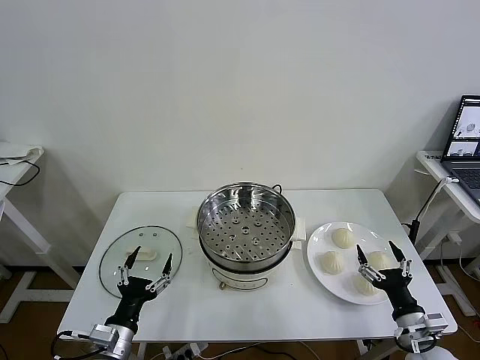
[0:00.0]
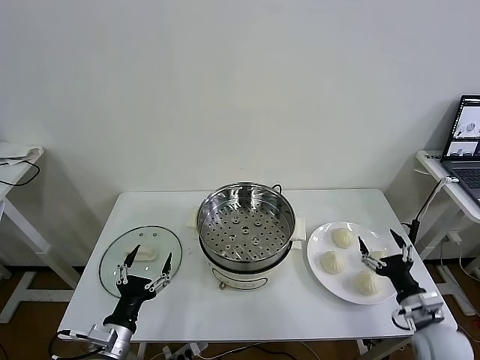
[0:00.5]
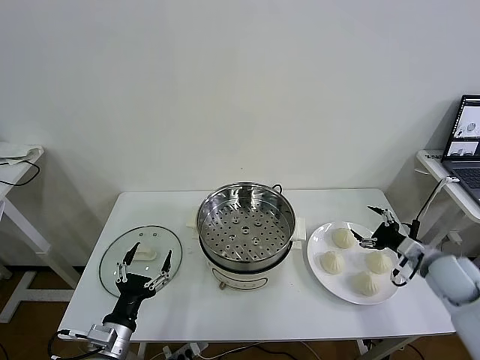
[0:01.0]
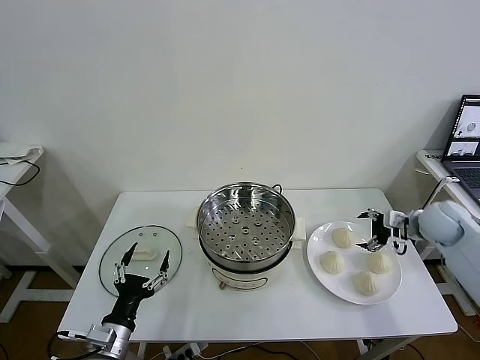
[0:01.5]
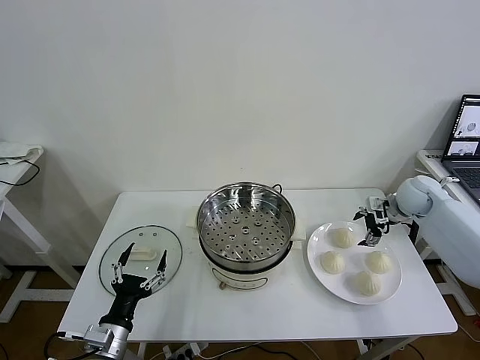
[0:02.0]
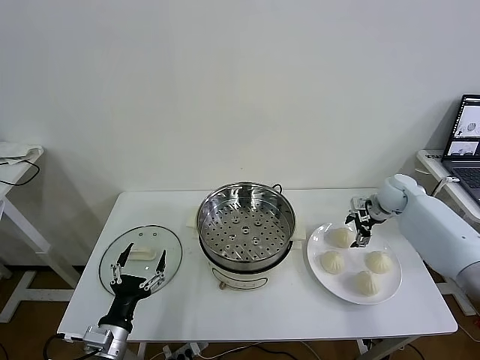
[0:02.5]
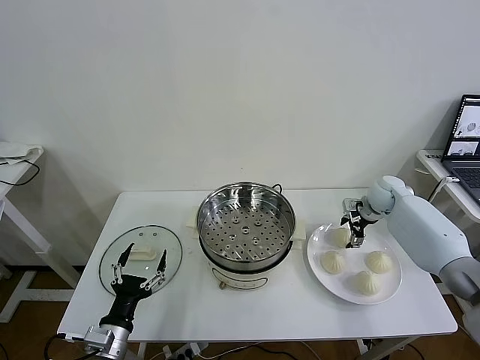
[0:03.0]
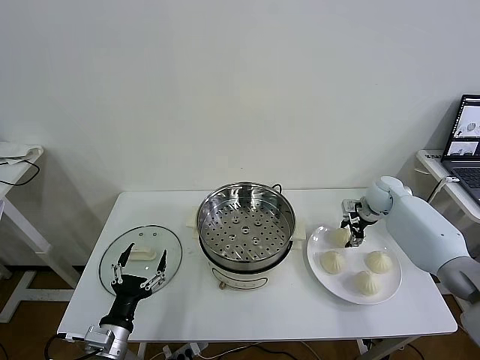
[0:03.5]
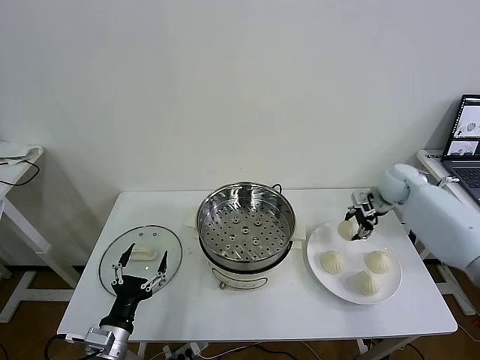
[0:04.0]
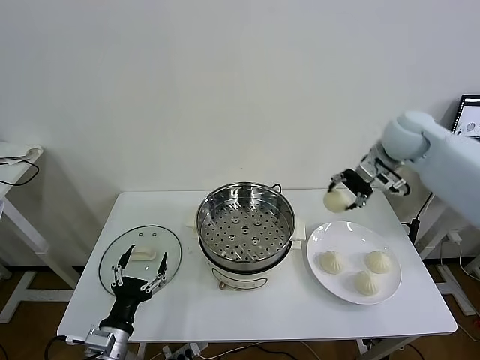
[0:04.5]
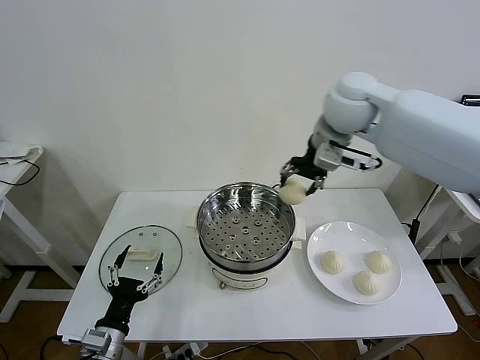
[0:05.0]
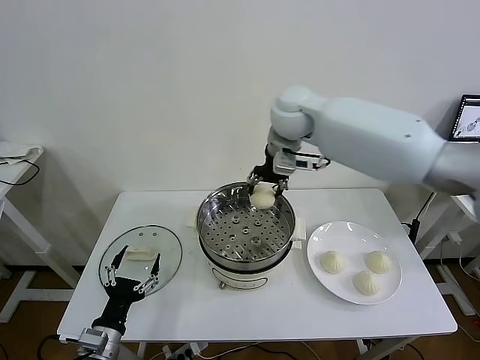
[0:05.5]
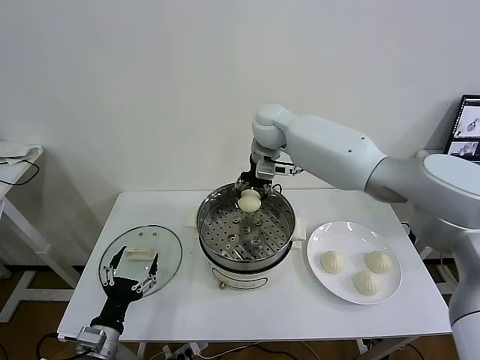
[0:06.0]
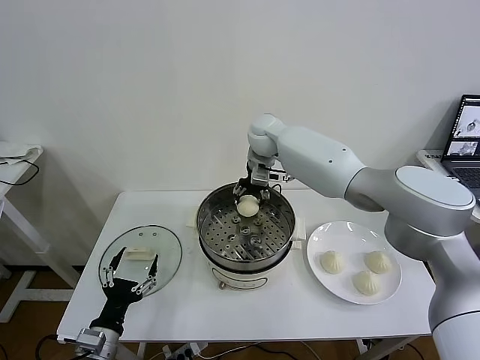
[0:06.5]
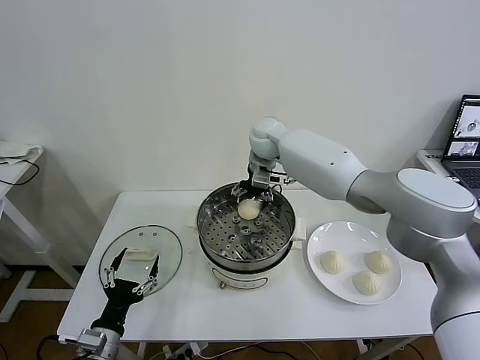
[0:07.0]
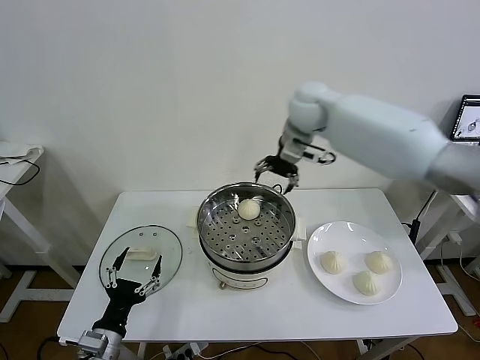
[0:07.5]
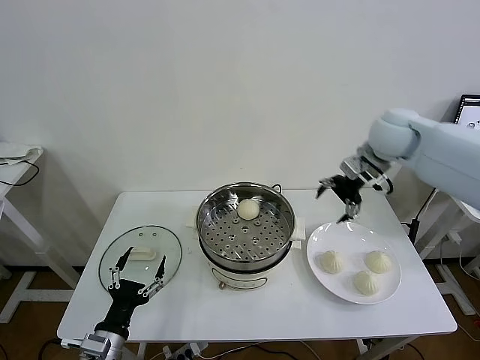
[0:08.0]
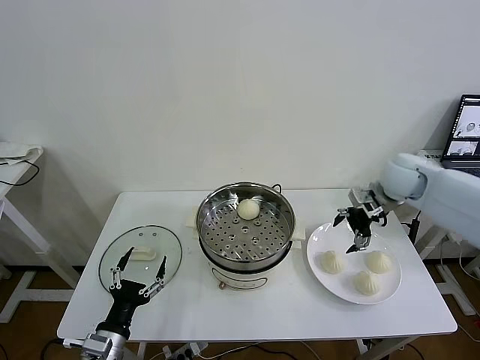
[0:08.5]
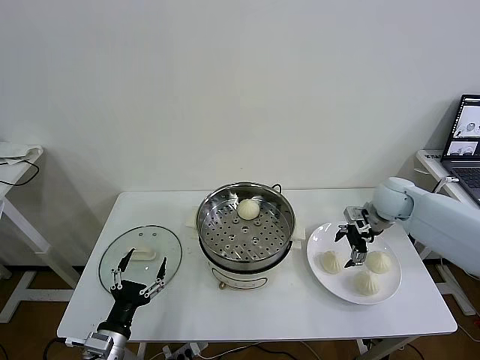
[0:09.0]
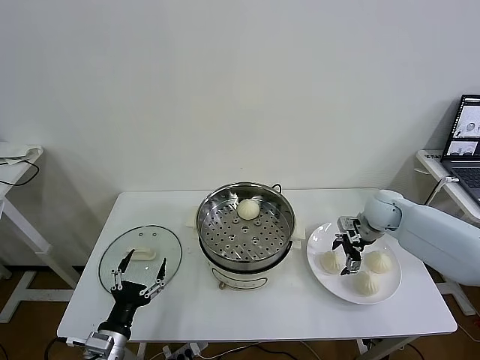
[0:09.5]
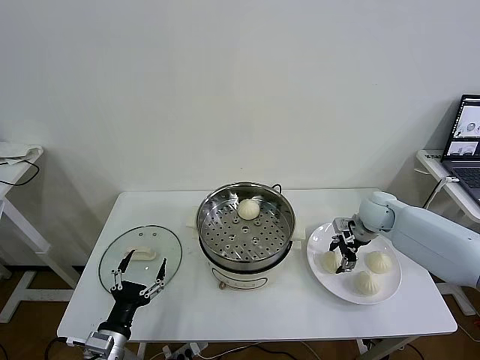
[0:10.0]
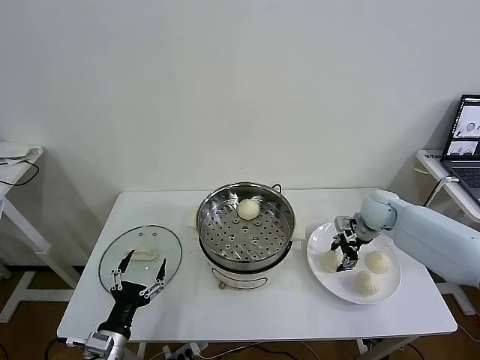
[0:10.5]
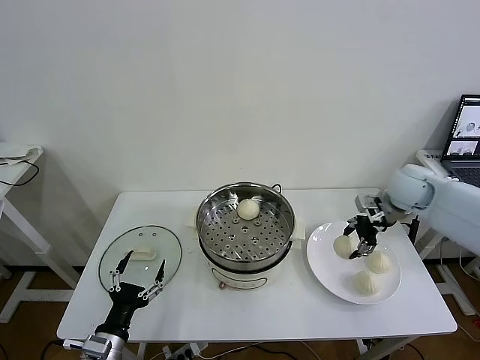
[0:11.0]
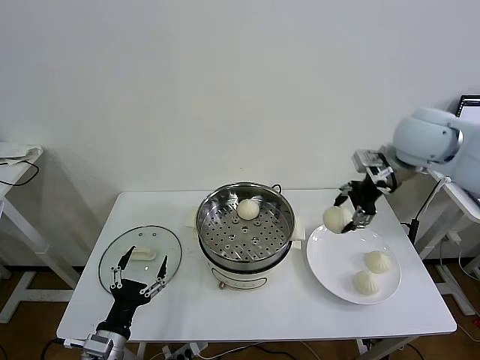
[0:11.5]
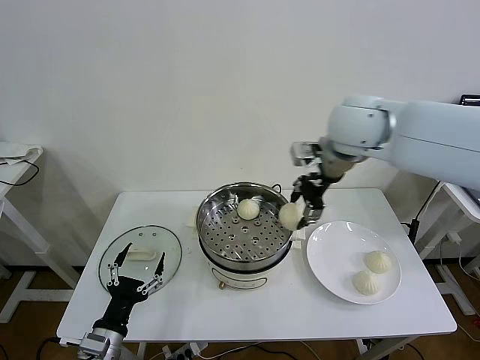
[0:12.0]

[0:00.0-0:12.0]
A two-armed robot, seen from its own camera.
Task of the whole recording: take steamed baozi put them in steamer then cover it.
Step, 0.0 to 3.0 s: Grasp the baozi in the plate with right gripper.
Step, 3.5 to 6.5 s: Place the baozi on the steamer with right gripper.
Step, 7.0 to 10.0 s: Grasp the baozi in the plate with right gripper.
2.0 to 4.0 s: The right gripper moves upward, about 10 cm, and closes up.
4.0 to 6.0 s: The right gripper is displaced to the left by some 35 cm.
6.0 to 8.0 s: The right gripper shifts approximately 25 cm to the right, and opens up.
8.0 to 10.0 s: The right gripper shifts approximately 20 cm downward, and closes up.
10.0 to 12.0 s: The right gripper shifts some 35 cm upward and to the left.

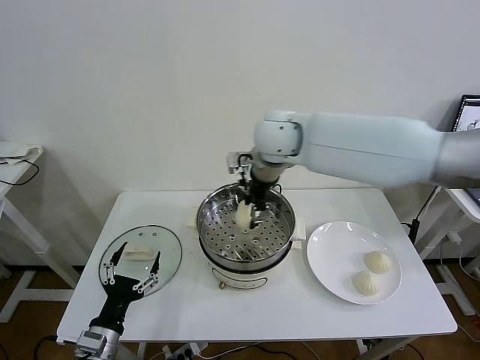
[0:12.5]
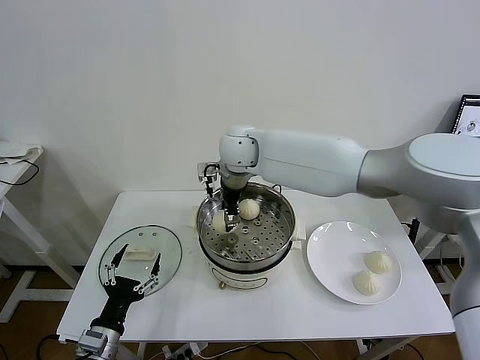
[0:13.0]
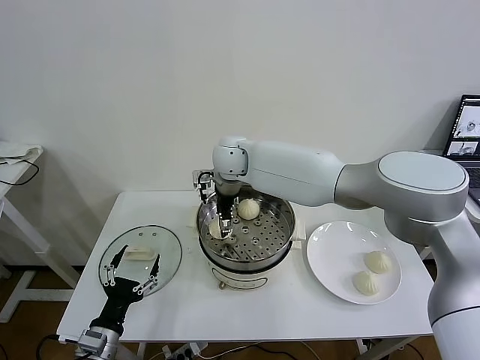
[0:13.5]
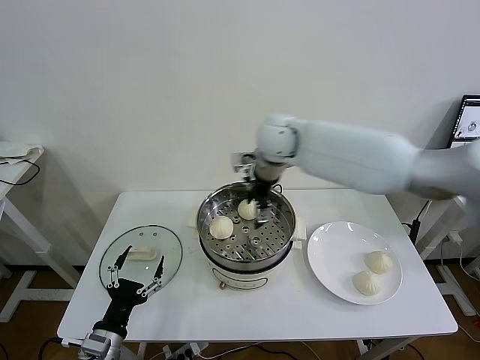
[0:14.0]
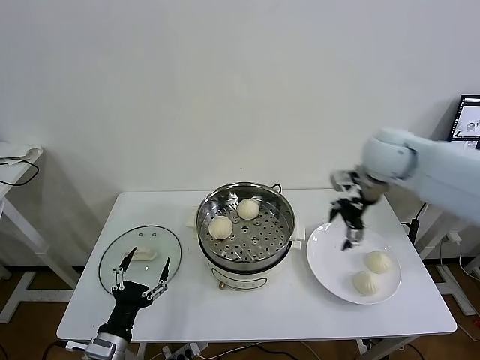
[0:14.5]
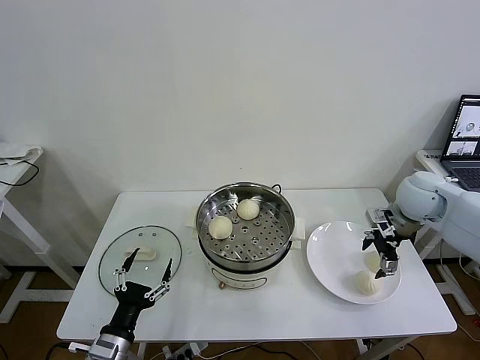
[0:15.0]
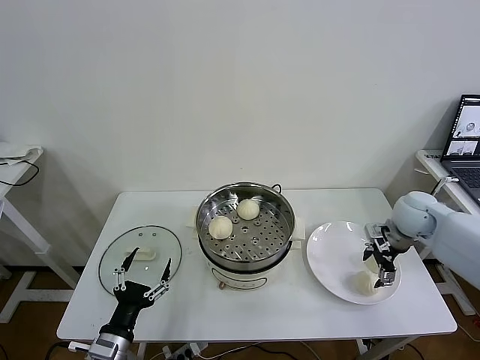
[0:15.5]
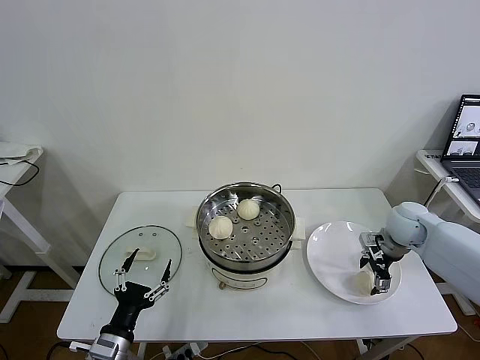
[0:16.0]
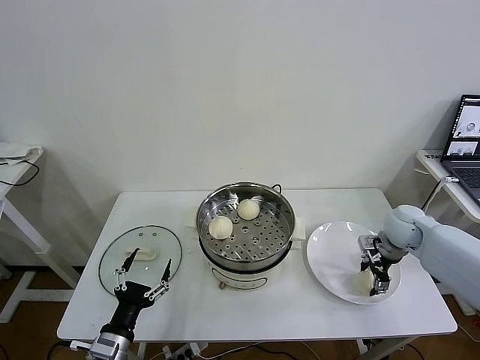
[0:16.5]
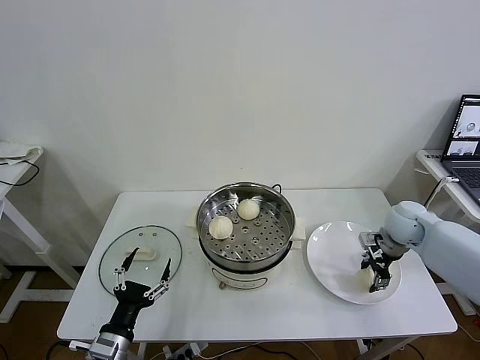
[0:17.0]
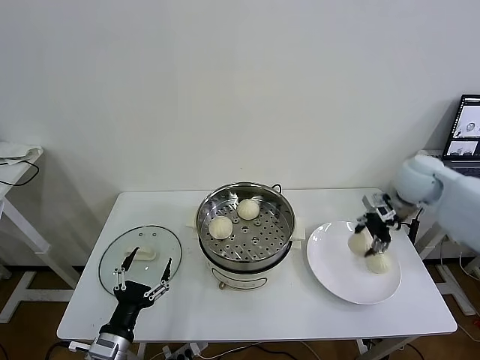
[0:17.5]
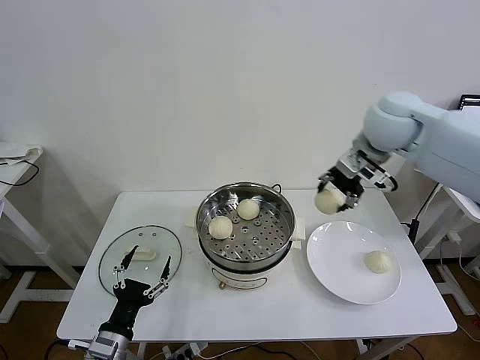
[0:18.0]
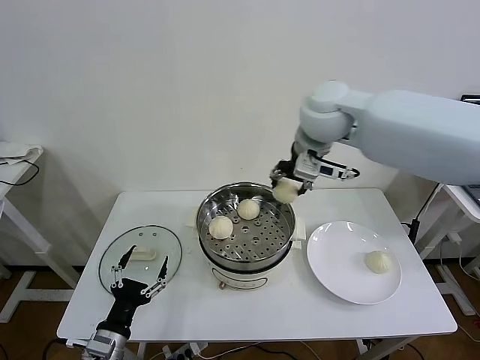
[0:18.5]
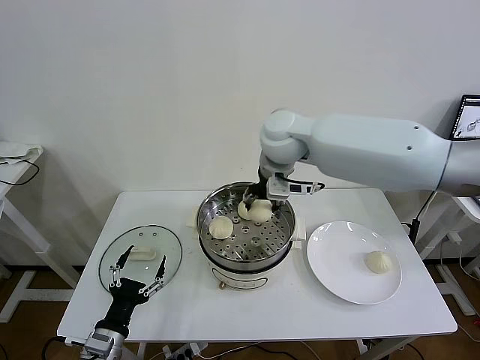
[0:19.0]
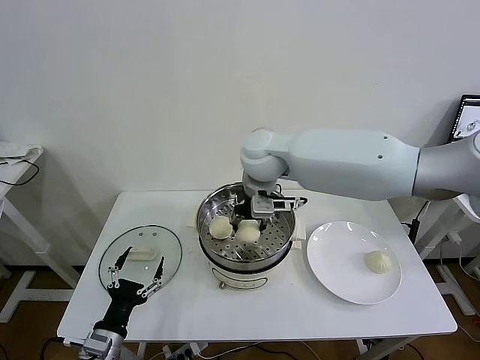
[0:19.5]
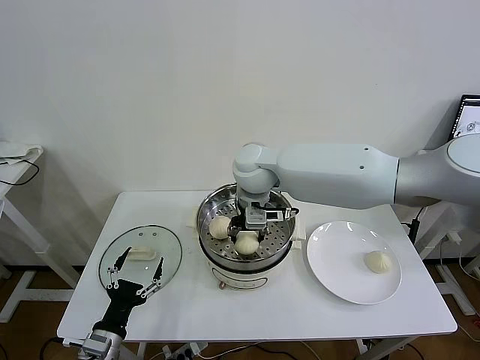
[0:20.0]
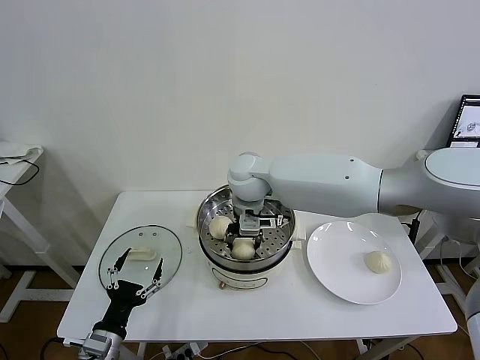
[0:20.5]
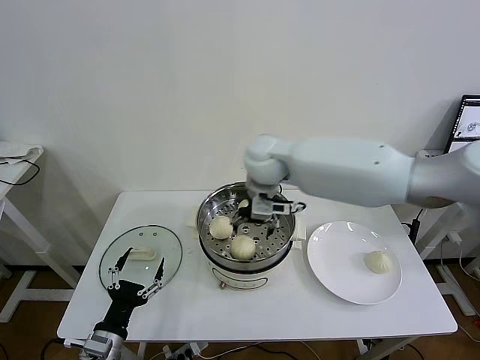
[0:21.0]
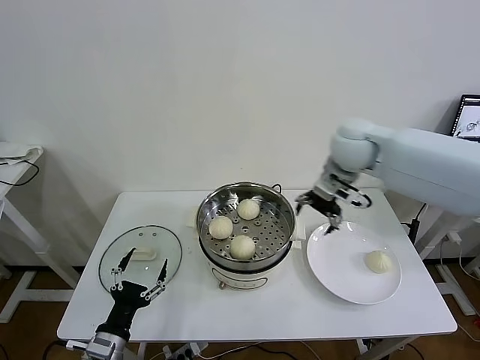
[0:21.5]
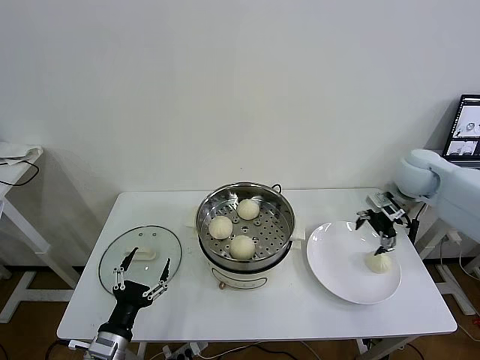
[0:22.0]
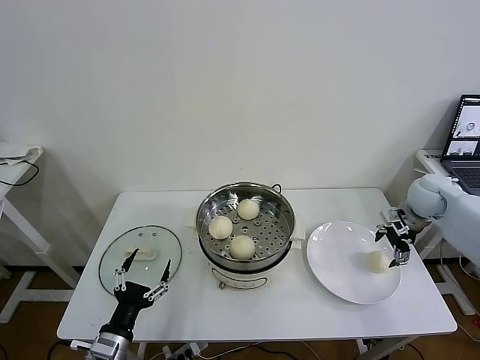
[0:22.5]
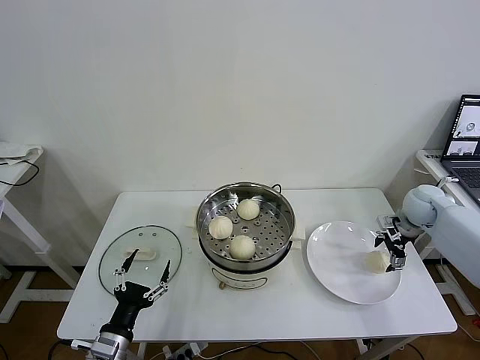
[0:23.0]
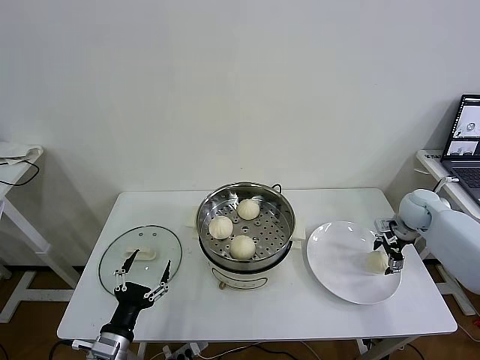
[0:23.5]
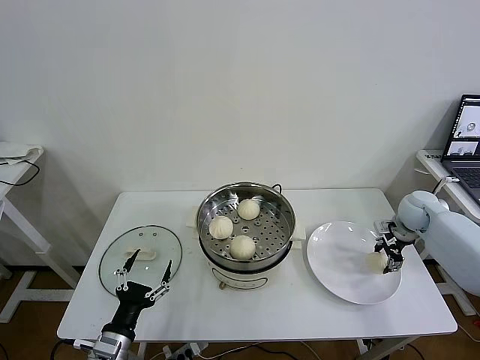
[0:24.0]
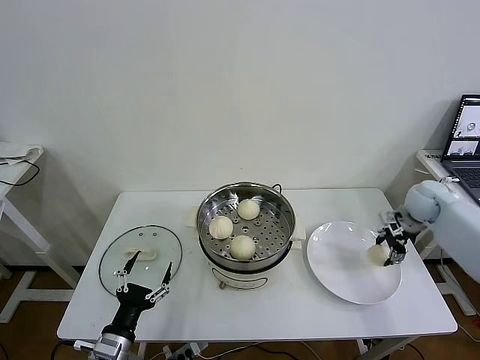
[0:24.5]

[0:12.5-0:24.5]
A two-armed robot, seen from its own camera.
Task of the whole recording: take steamed baozi put them in steamer then cover it.
Step, 14.0 to 16.5 s: Grasp the baozi in the plate with right gripper.
Step, 17.0 to 20.5 s: Place the baozi on the steamer with right gripper.
Step, 21.0 to 24.0 s: Grasp the baozi in the plate with right gripper.
12.5 to 14.5 s: The right gripper moves to the right, roughly 30 cm, and opens.
14.5 to 16.5 s: The right gripper goes approximately 20 cm downward and to the right, and closes up.
16.5 to 18.5 s: The right gripper is displaced upward and to the left by approximately 40 cm.
18.5 to 20.5 s: The right gripper is displaced downward and to the left by approximately 20 cm.
20.5 to 22.5 s: The right gripper moves to the right, about 40 cm, and opens.
22.5 to 24.5 s: The right gripper closes up.

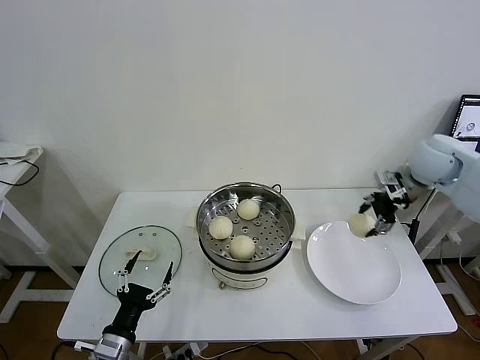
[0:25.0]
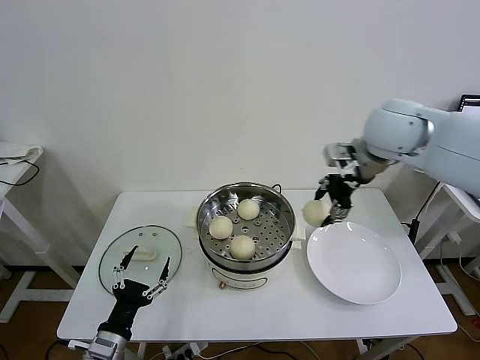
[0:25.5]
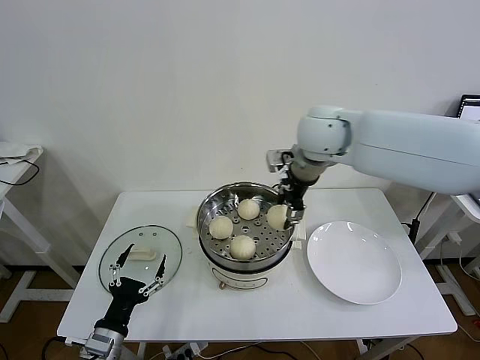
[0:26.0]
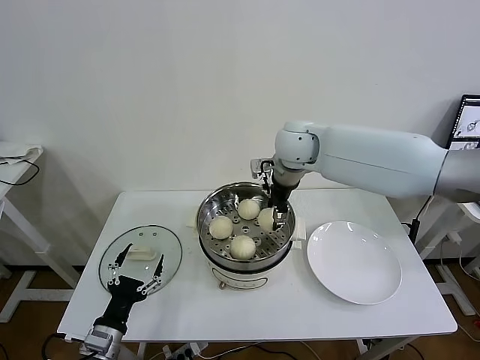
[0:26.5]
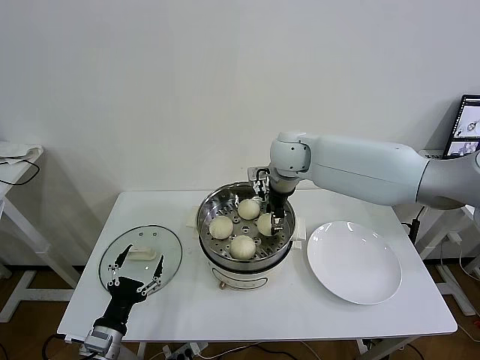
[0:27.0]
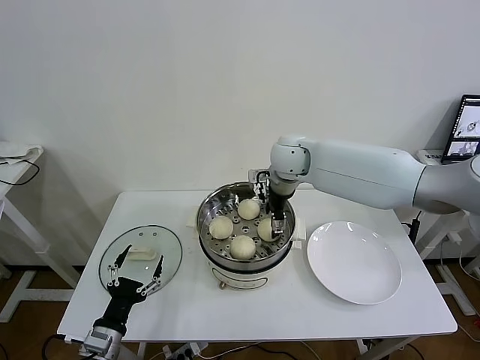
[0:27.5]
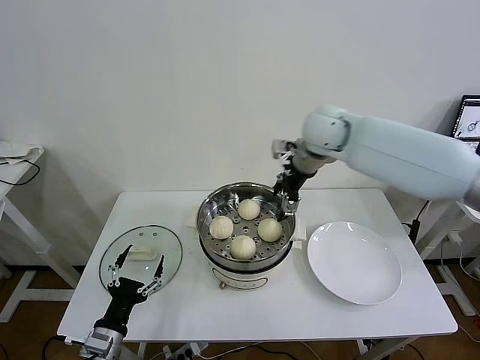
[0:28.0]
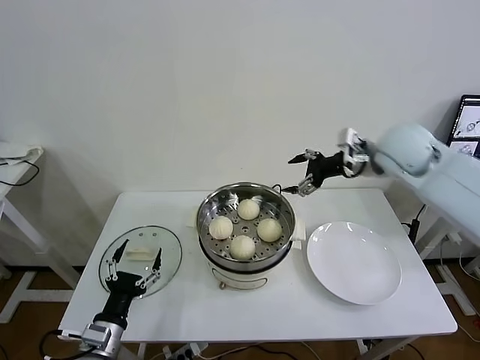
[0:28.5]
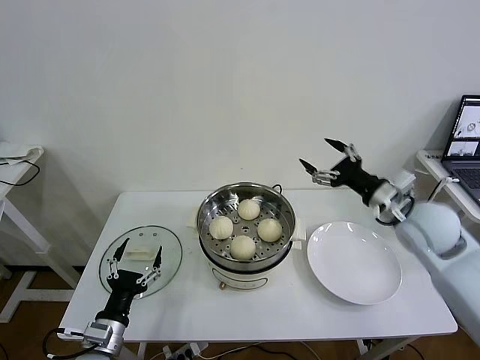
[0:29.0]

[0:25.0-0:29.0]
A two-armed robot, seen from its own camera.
Task of the whole recording: take steamed baozi put them in steamer then cover it.
Step, 25.0 to 27.5 s: Place the baozi on the steamer with right gripper.
25.0 to 27.0 s: The right gripper is displaced to the left by approximately 25 cm.
27.0 to 29.0 s: The right gripper heads to the right and backward, covering some 30 cm, and opens.
